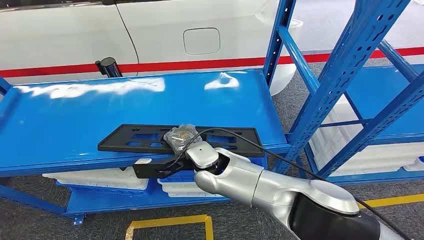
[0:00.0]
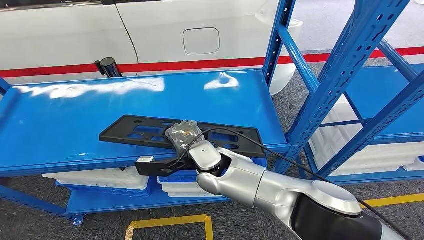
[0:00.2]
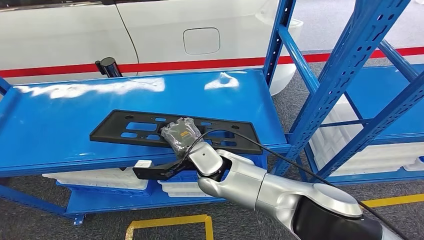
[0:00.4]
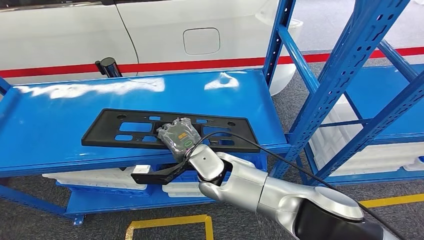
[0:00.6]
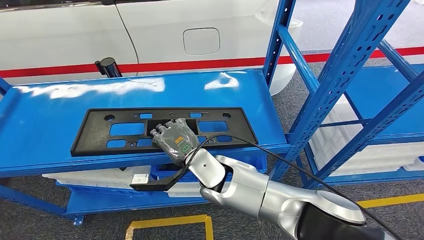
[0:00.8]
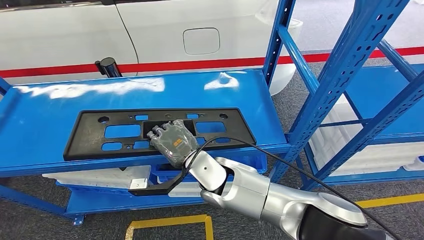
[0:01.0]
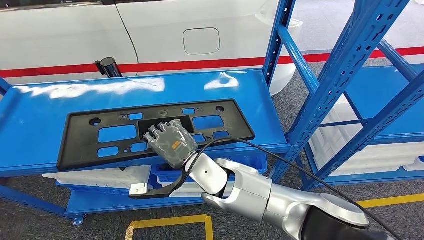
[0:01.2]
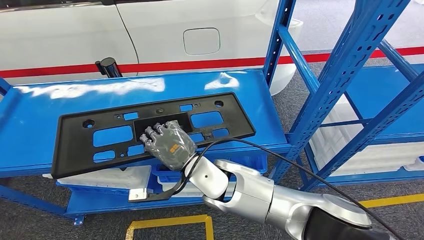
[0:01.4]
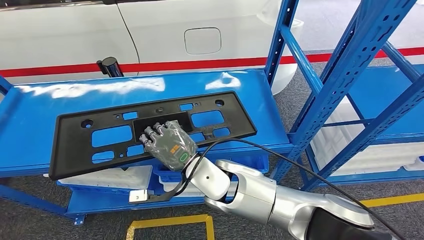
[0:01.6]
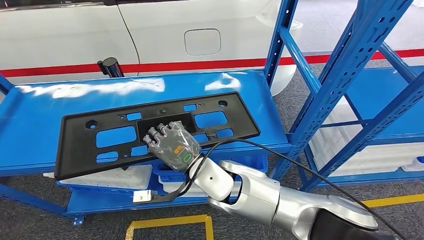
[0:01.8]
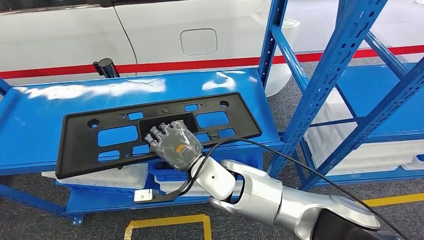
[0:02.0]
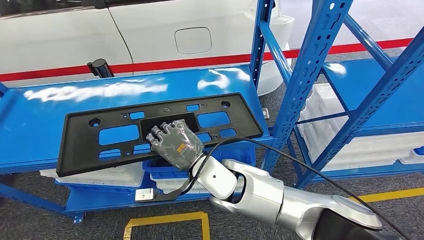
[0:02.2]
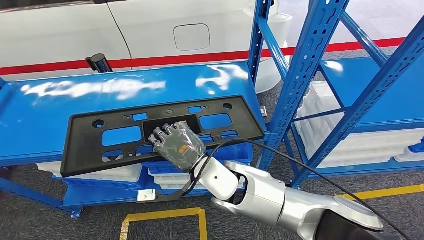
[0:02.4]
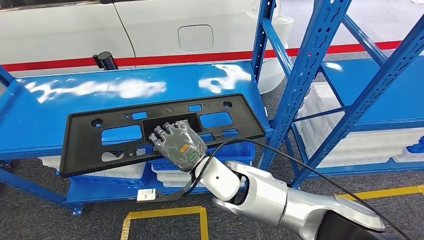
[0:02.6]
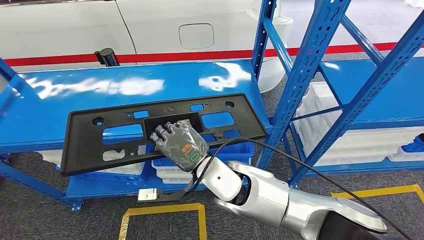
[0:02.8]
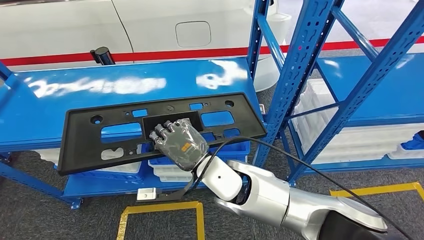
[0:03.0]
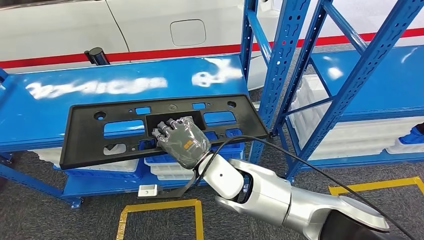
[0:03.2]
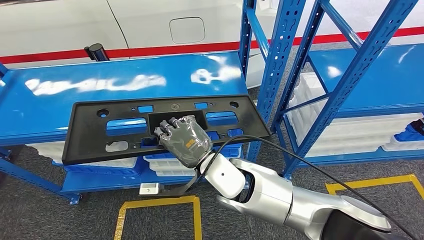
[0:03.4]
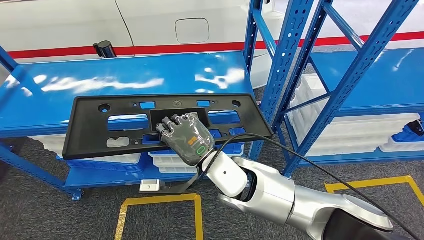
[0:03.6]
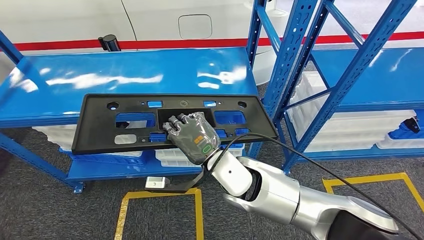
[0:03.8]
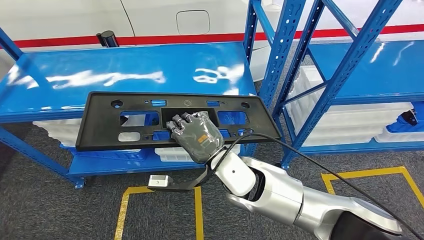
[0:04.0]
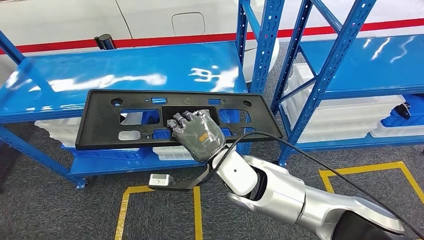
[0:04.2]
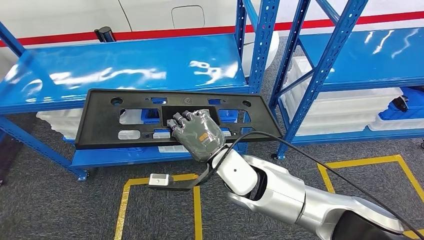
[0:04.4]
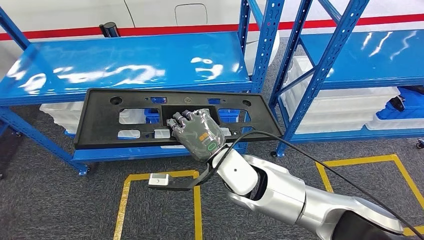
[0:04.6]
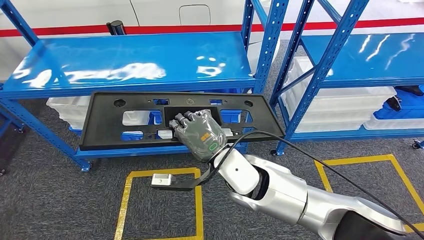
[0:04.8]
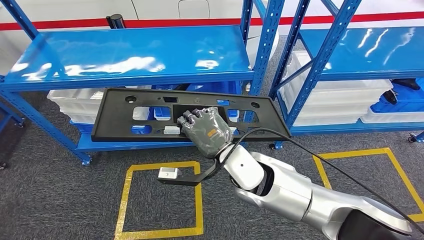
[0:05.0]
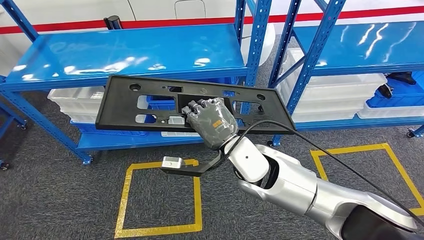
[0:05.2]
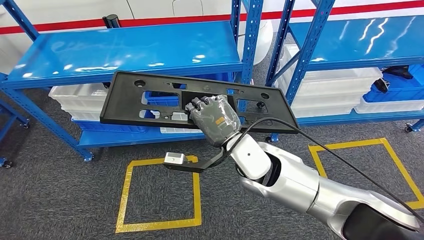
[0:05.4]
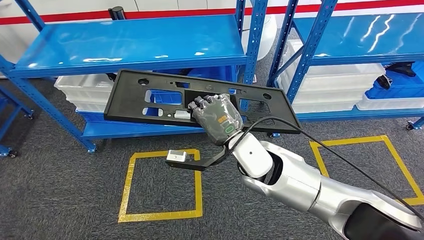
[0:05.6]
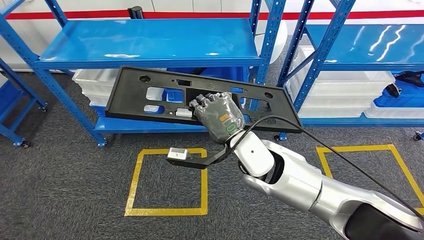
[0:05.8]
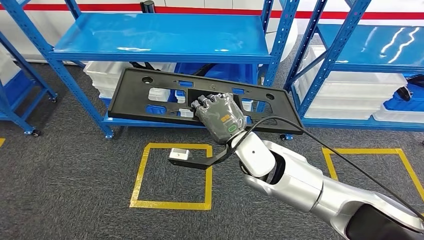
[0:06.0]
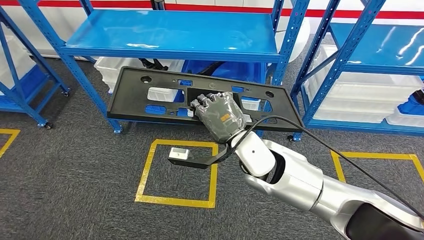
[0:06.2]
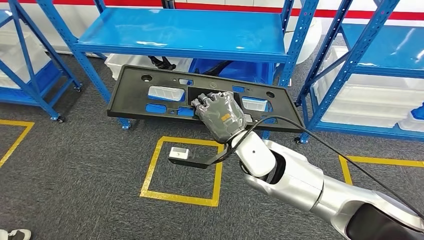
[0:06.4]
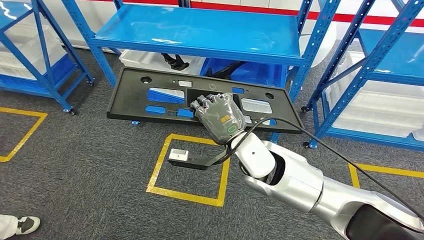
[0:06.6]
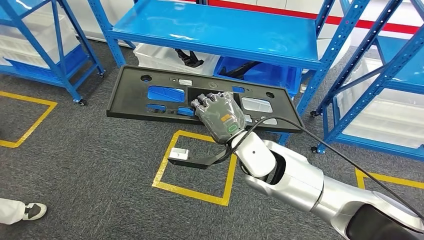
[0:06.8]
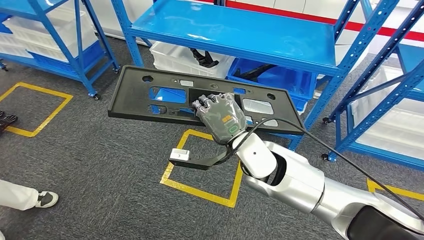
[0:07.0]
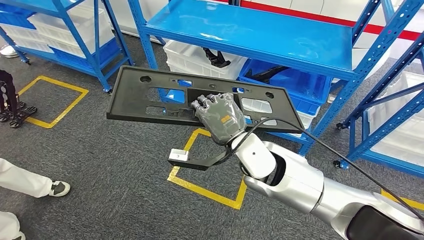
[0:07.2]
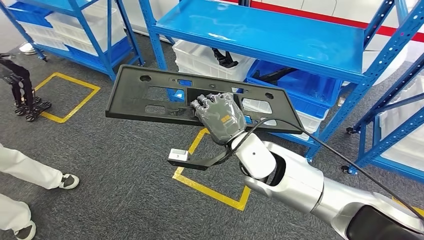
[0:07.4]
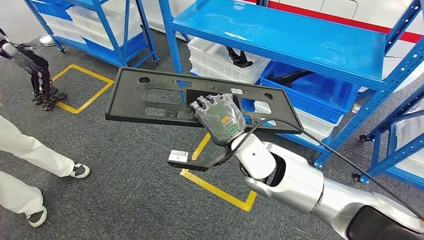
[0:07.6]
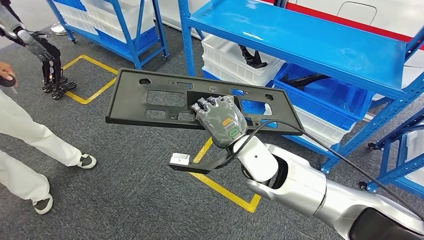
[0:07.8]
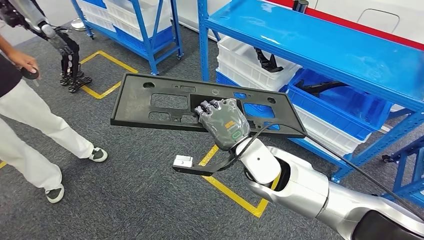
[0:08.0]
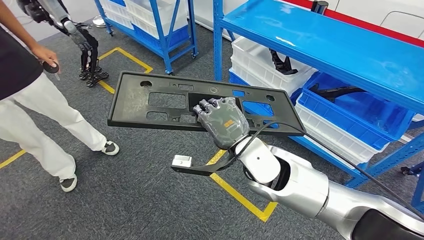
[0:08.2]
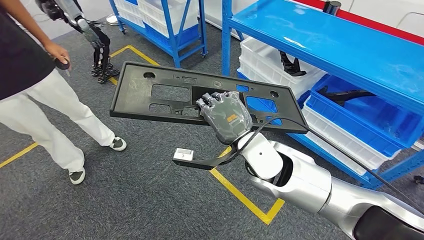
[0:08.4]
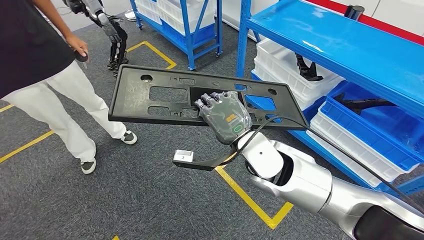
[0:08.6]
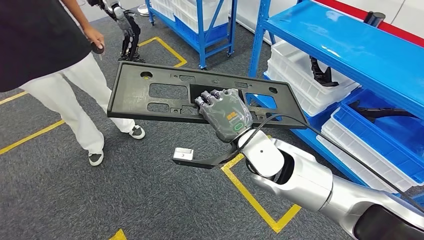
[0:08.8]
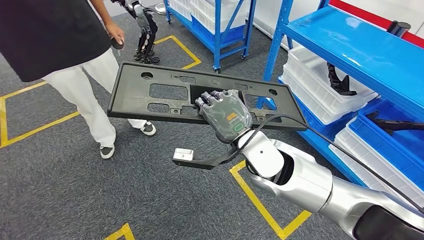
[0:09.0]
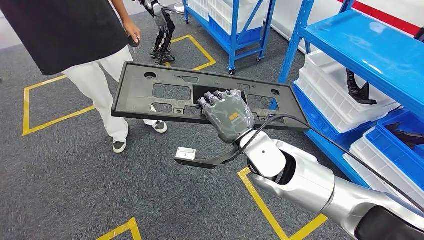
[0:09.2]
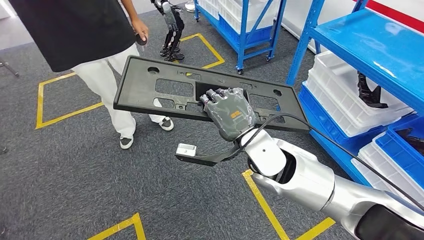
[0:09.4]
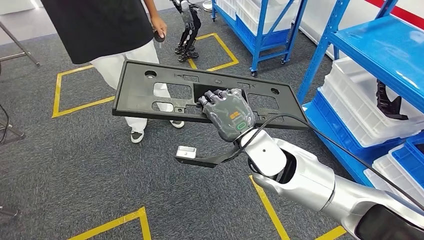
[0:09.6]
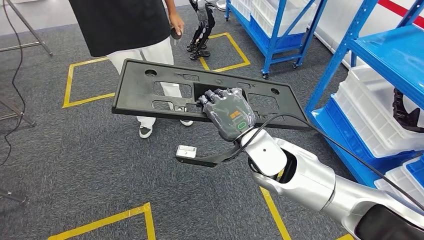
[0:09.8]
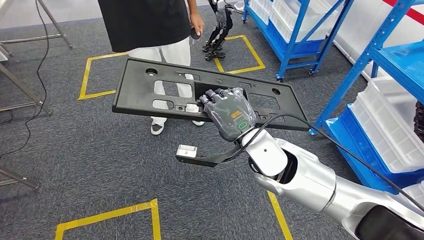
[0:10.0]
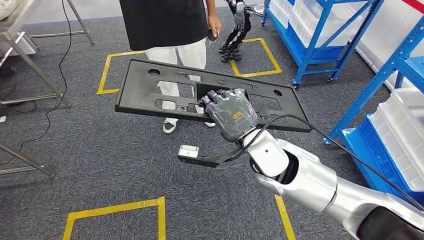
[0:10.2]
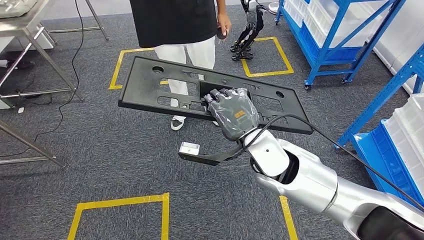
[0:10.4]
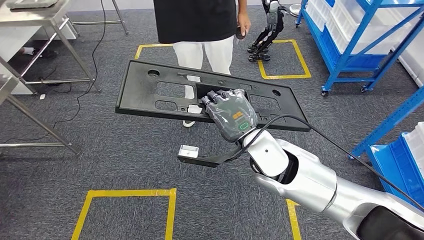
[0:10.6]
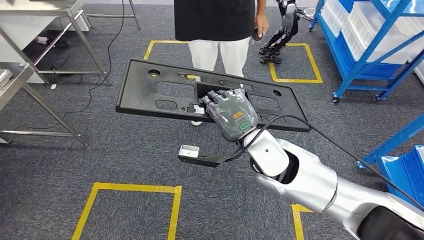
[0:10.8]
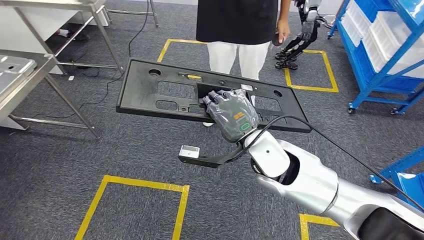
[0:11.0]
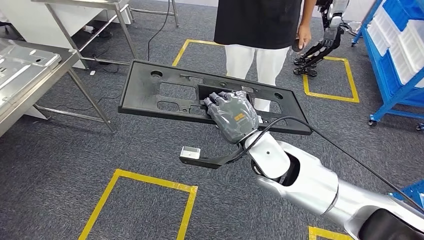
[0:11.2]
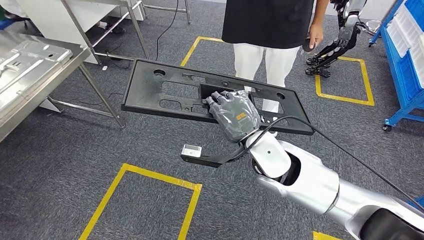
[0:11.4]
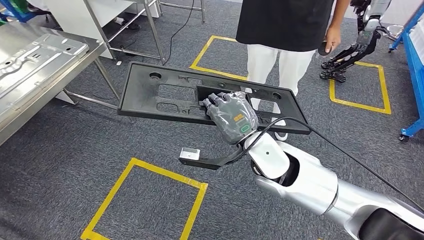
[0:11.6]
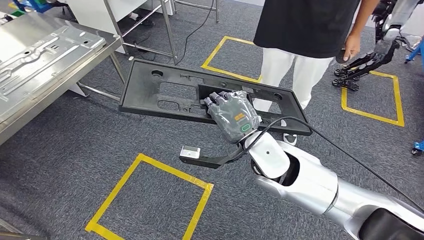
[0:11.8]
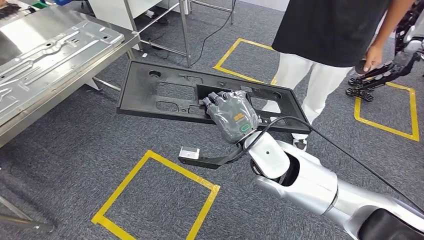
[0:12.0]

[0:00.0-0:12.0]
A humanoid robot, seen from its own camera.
Step, 0:00.0 to 0:05.0: Pick up the large material from the shelf.

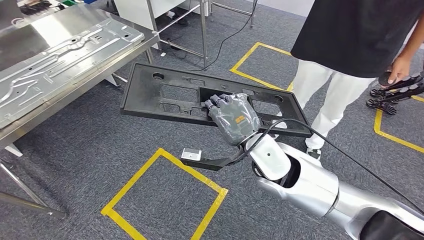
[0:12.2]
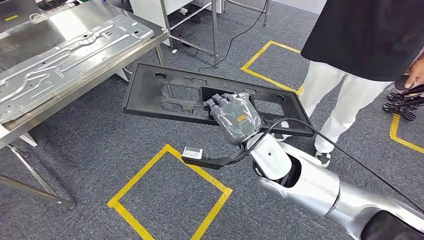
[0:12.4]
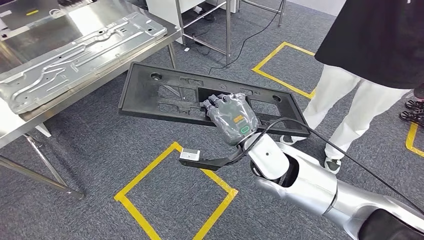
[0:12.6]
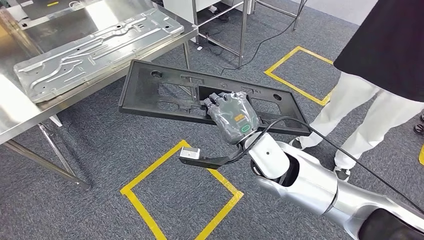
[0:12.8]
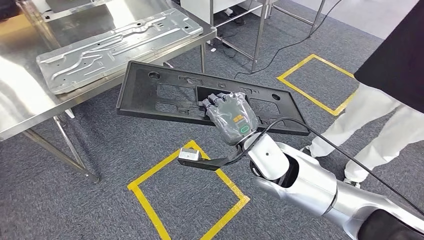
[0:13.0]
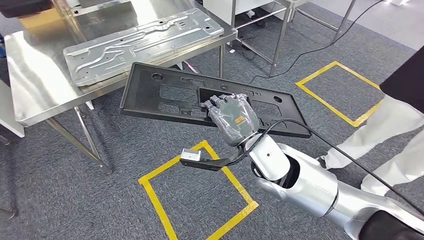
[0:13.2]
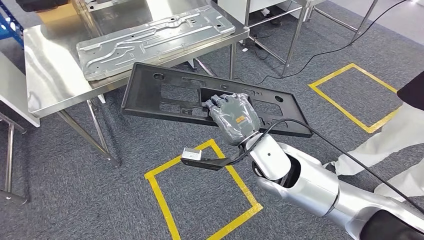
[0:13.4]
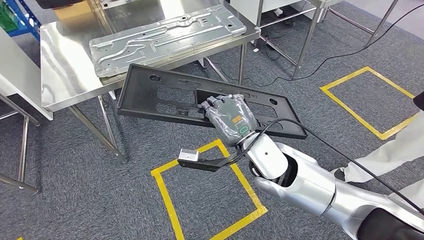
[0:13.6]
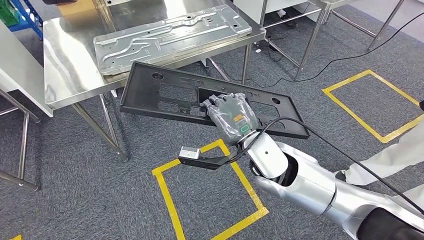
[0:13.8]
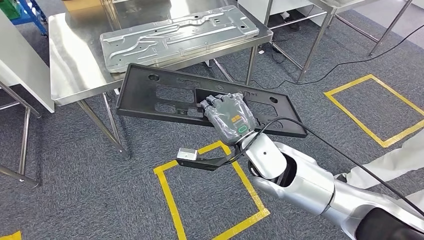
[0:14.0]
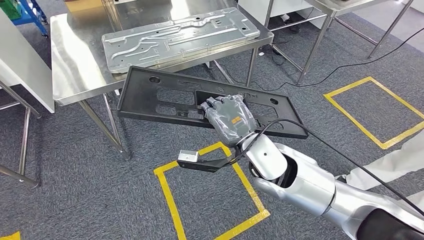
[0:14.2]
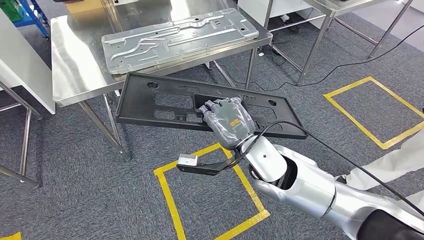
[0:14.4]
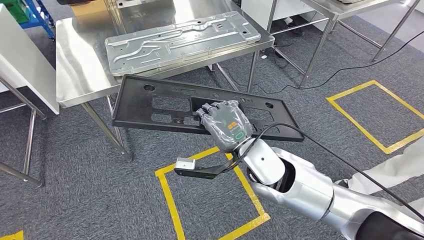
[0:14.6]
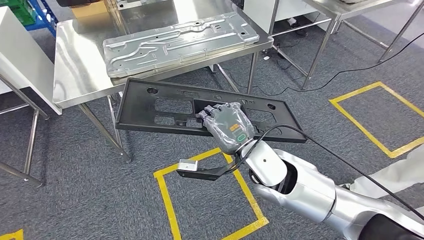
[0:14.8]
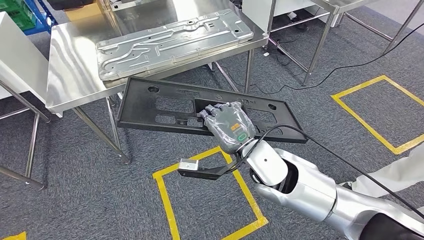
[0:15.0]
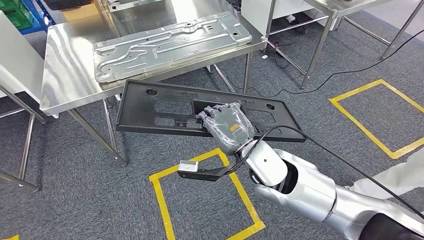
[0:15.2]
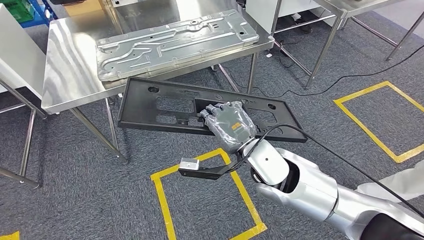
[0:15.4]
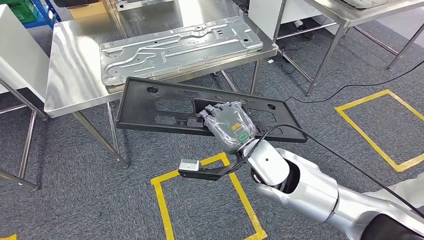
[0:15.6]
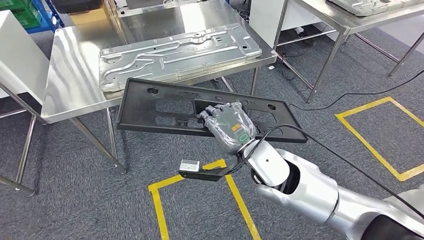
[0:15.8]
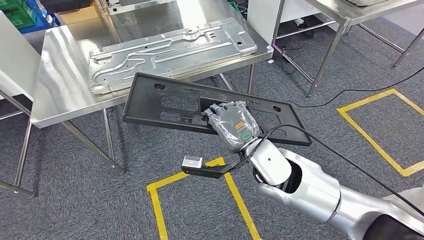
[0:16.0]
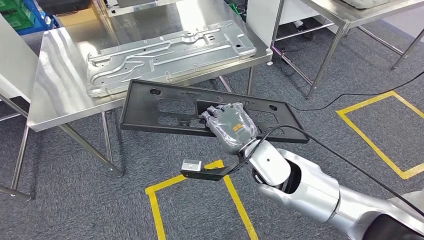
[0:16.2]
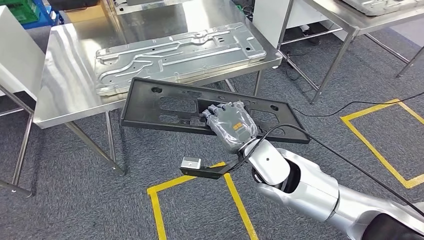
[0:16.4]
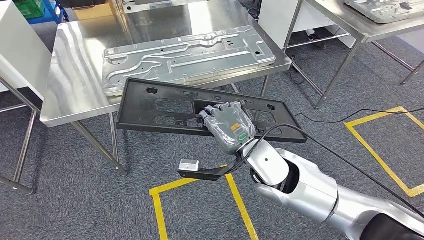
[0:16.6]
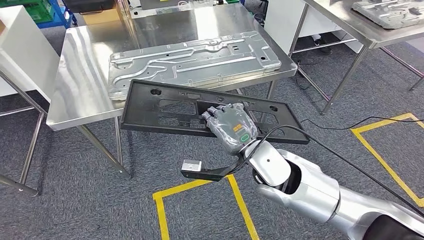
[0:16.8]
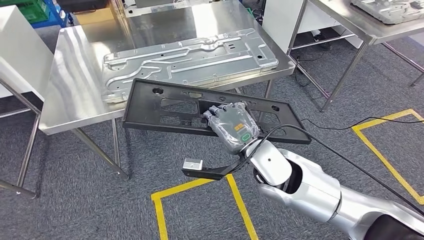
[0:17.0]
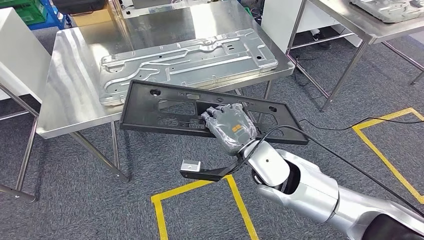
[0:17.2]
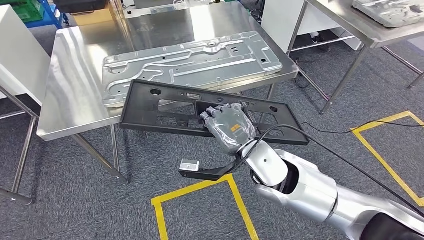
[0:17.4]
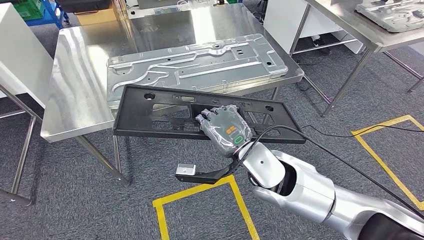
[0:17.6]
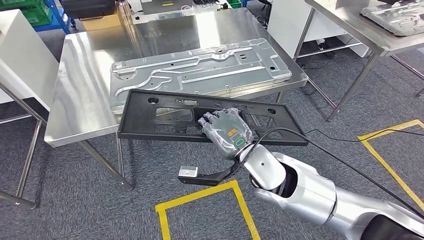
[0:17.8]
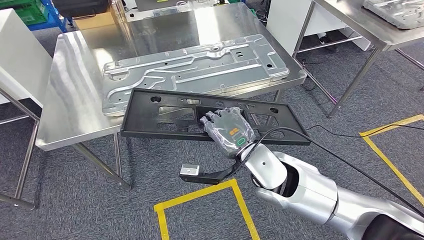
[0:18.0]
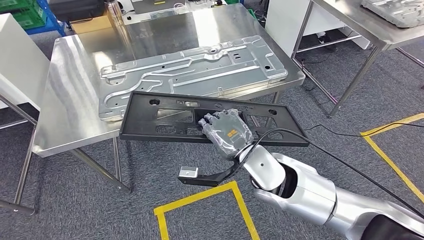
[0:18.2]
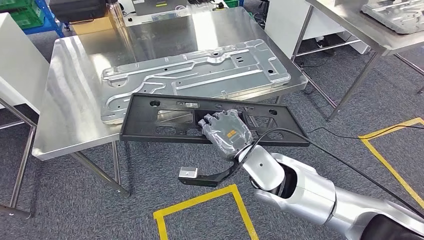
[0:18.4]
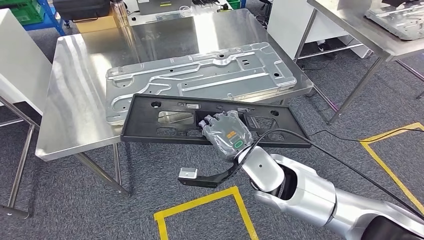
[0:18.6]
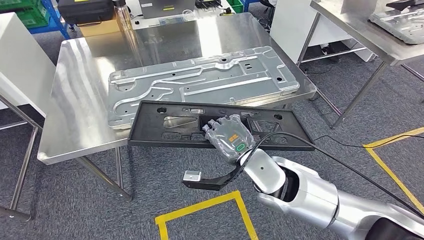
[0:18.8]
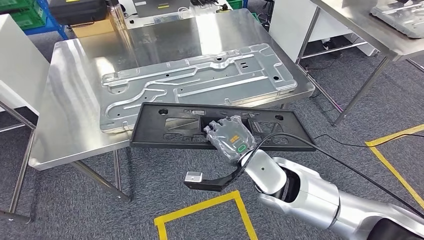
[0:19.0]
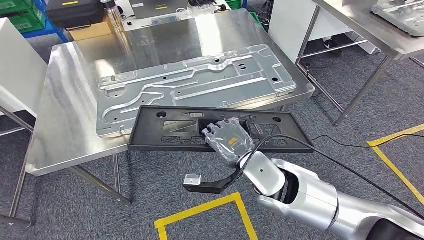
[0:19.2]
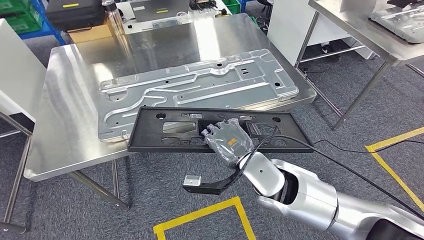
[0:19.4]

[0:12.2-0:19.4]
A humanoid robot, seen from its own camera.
Step, 0:12.2 to 0:17.6: Move the large material to the front of the workbench.
